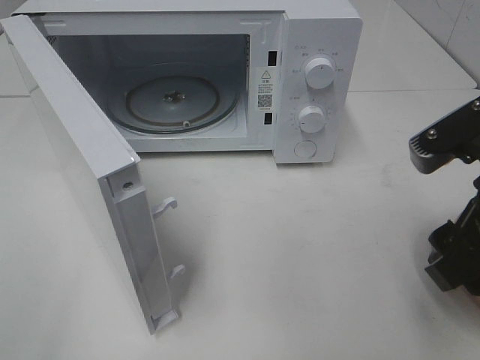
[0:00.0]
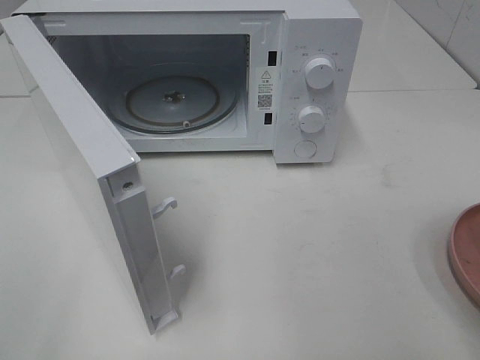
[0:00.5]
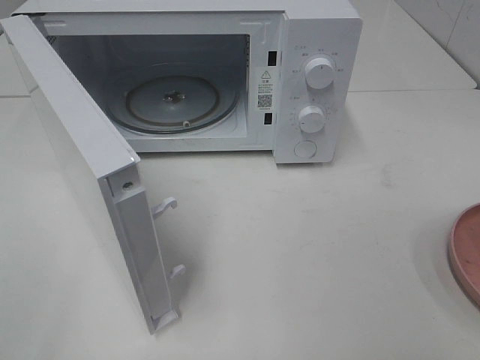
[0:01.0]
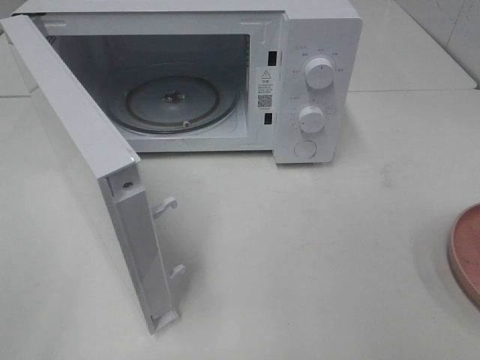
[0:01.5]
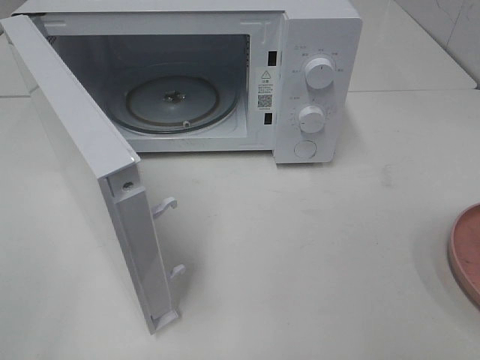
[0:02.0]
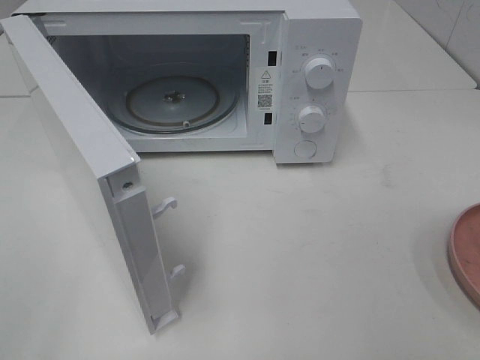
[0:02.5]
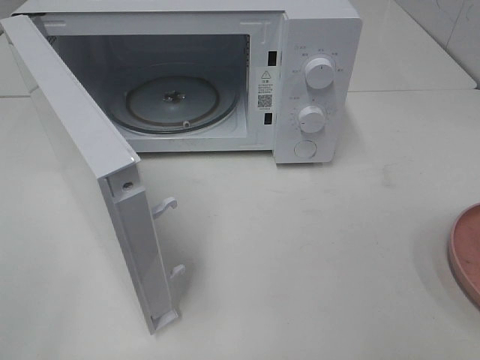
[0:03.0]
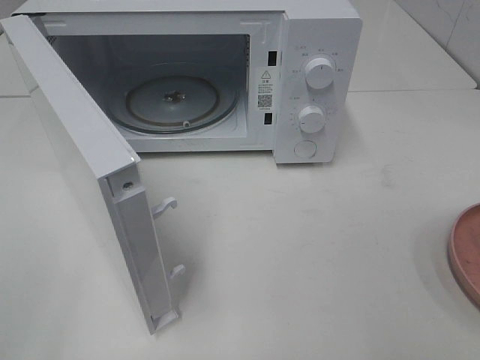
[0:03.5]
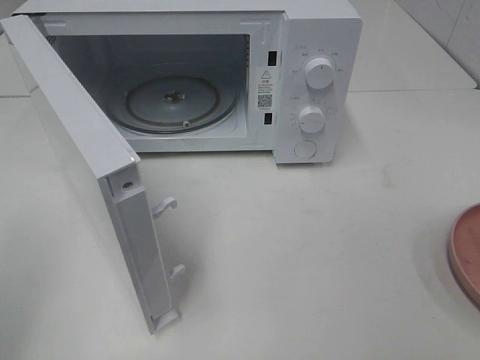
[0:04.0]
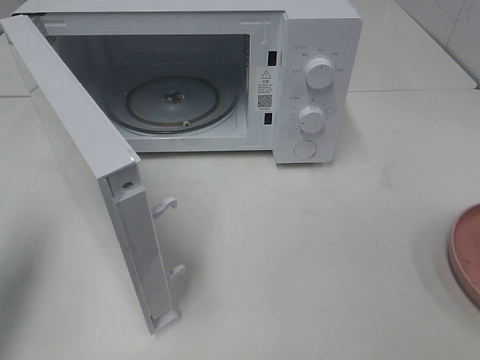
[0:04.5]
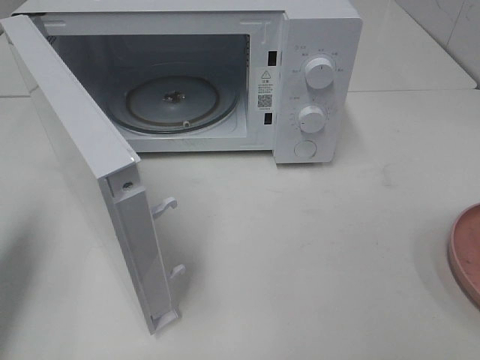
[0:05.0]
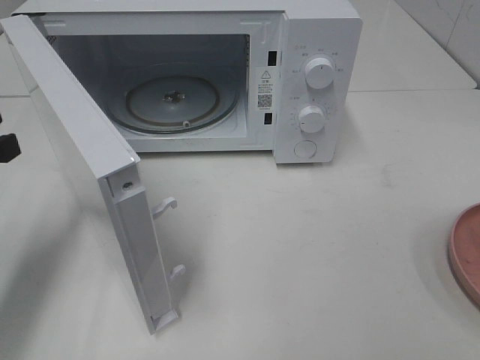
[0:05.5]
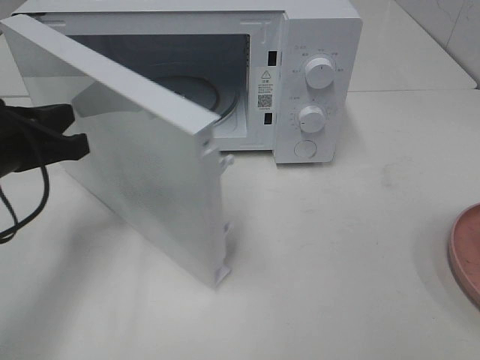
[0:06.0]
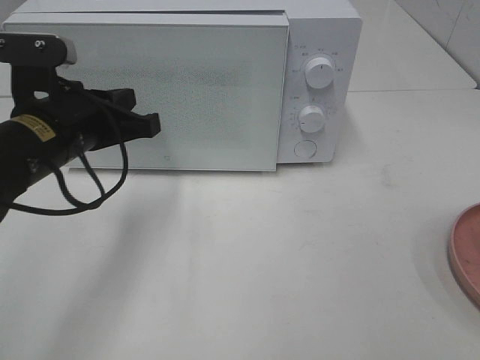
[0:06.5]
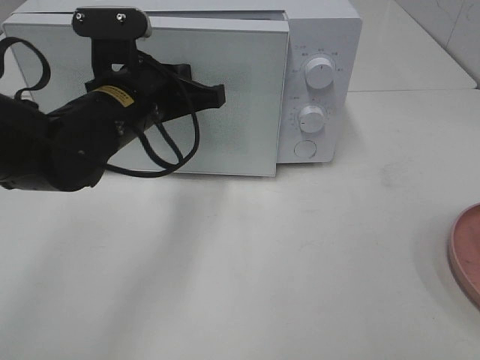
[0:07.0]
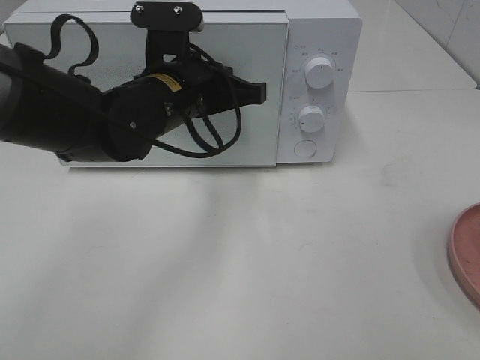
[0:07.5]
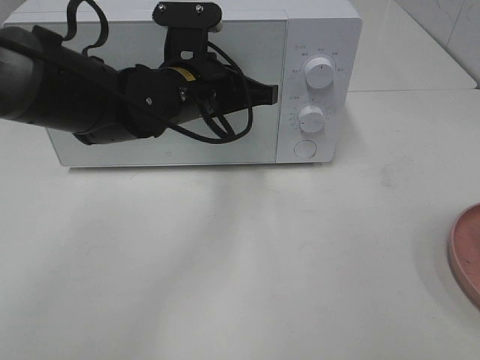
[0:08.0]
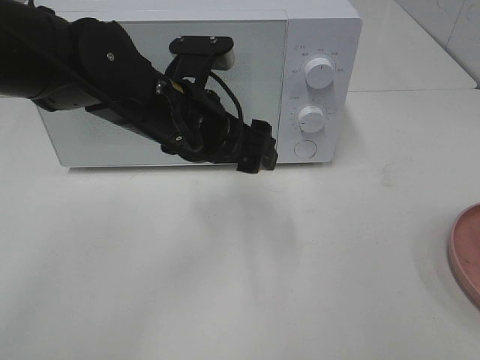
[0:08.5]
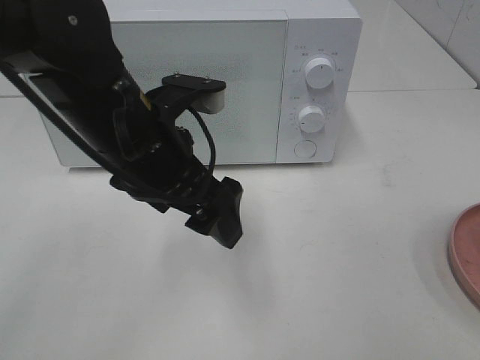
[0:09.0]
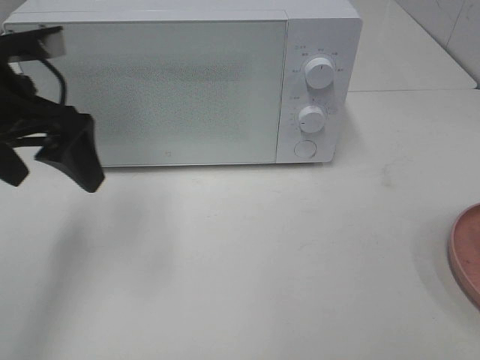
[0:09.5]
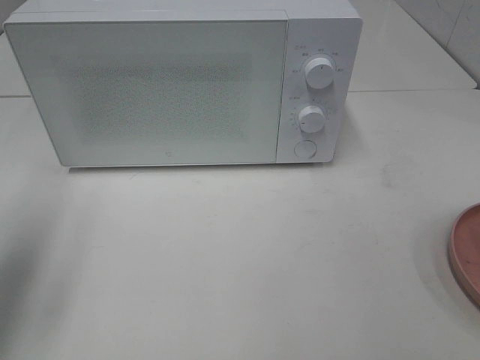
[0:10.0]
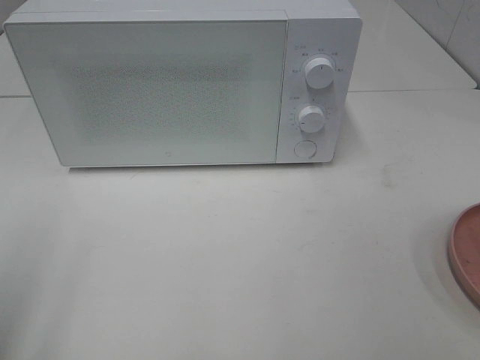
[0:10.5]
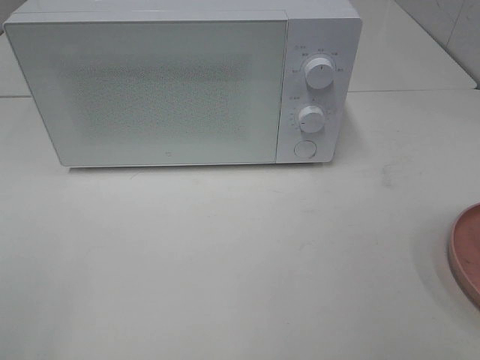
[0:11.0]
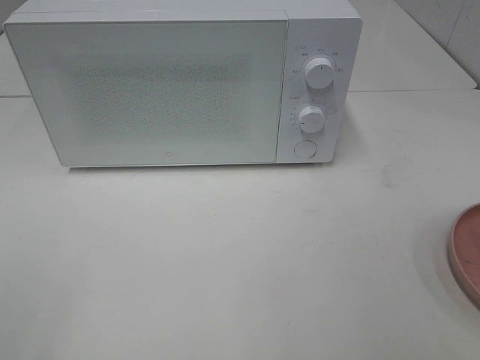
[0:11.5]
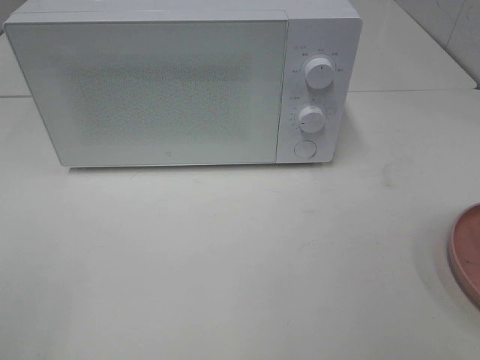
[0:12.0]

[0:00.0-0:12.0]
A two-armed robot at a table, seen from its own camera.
Task of the whole recording: Heat the burger.
Step, 0:00.0 to 0:08.5: Left hand: close the microwave door.
0:00.0 to 0:02.0: The right gripper goes some 20 cm backward and to the right.
0:04.0 to 0:06.0: The left gripper shifts approximately 25 cm forward, downward and to the right, and closes its fingers.
0:06.0 to 0:08.0: The left gripper is displaced to the right and forward by about 20 cm.
0:08.0 to 0:10.0: The left gripper is displaced to the left and backward by roughly 30 cm, and opens.
0:10.0 to 0:12.0: The left gripper is displaced backward by about 20 cm.

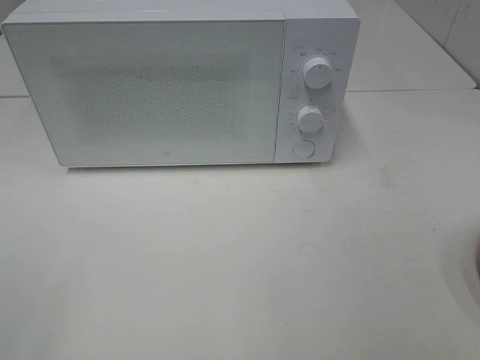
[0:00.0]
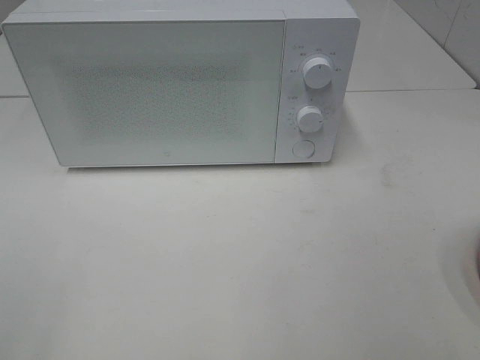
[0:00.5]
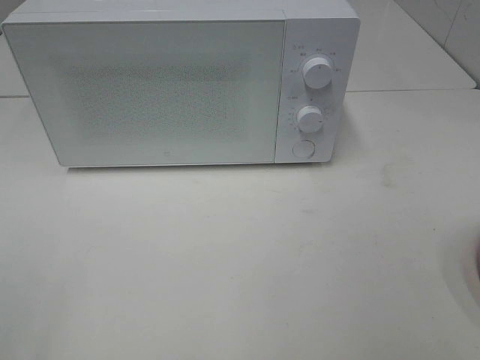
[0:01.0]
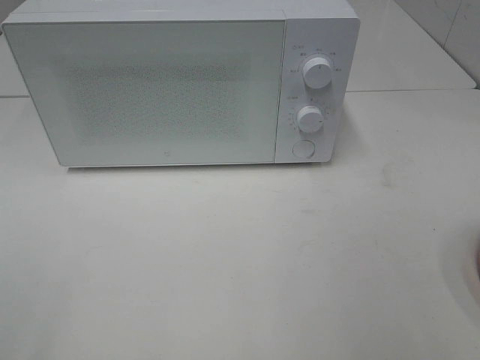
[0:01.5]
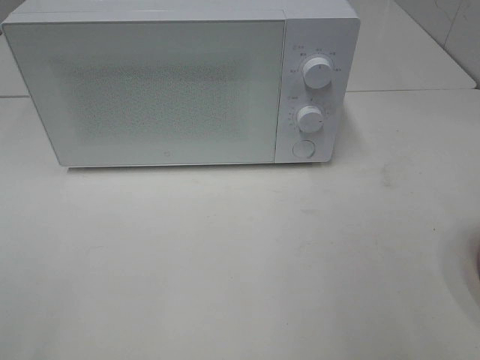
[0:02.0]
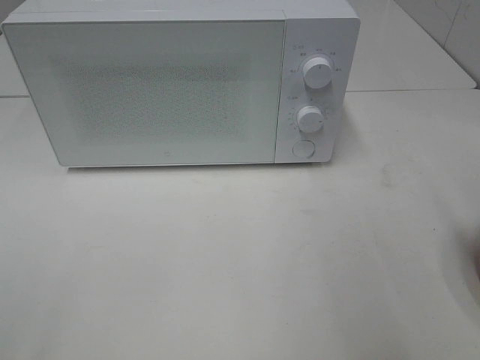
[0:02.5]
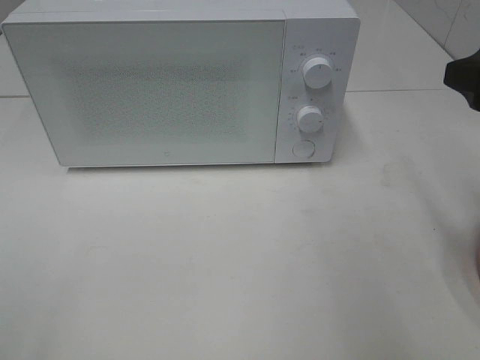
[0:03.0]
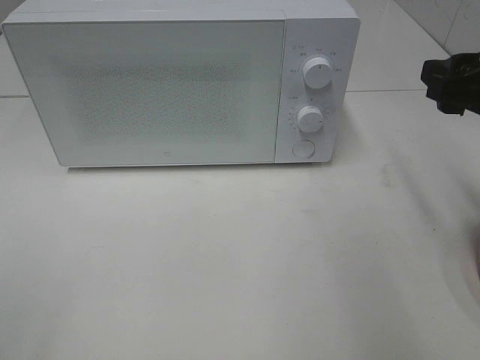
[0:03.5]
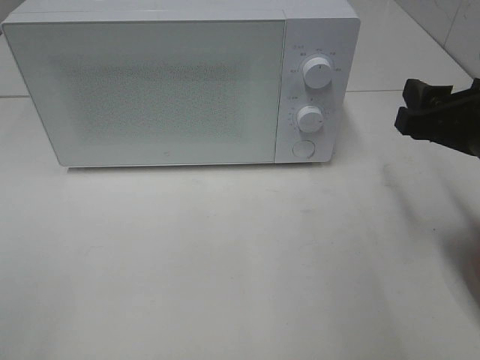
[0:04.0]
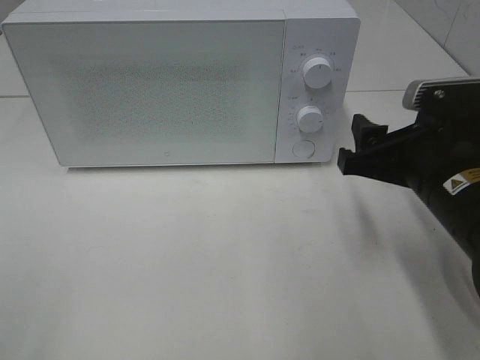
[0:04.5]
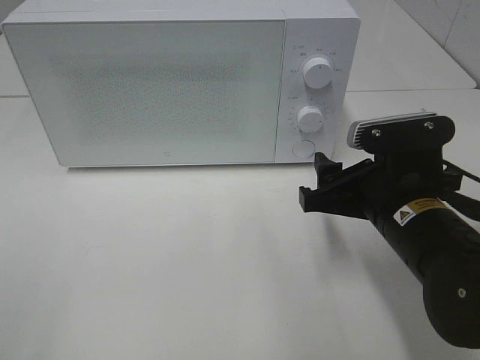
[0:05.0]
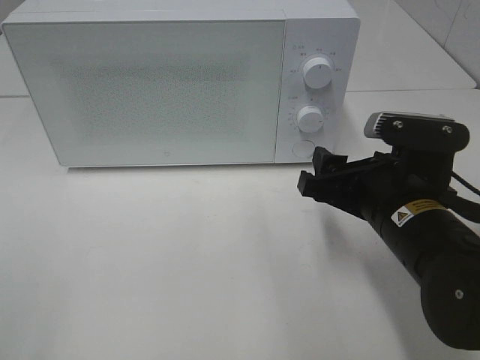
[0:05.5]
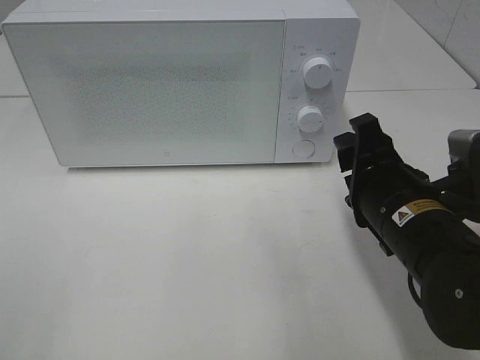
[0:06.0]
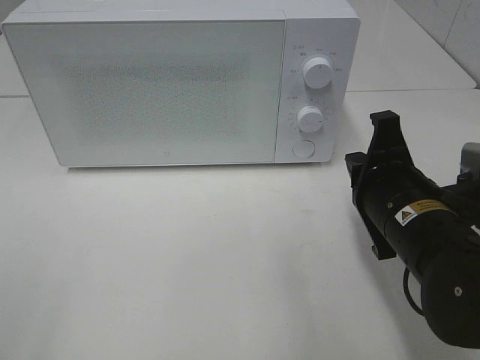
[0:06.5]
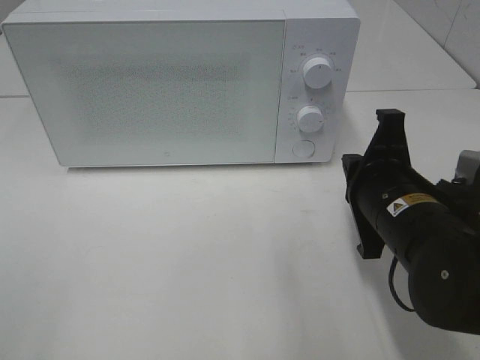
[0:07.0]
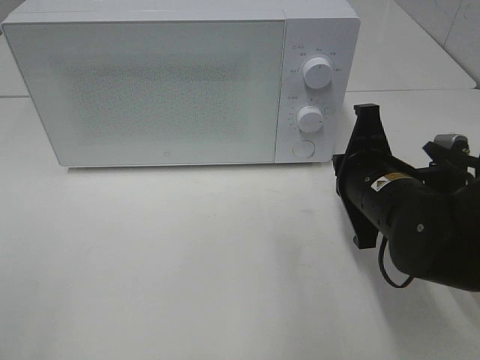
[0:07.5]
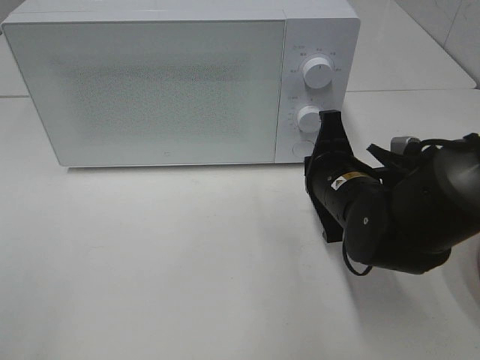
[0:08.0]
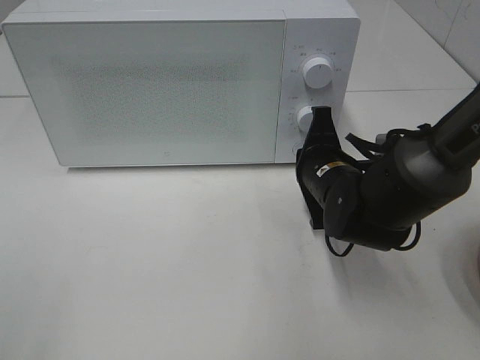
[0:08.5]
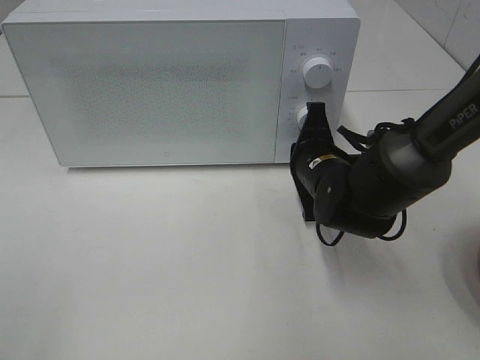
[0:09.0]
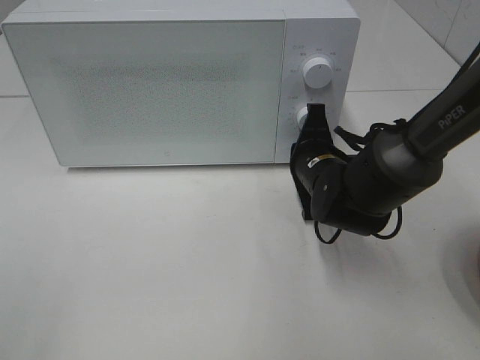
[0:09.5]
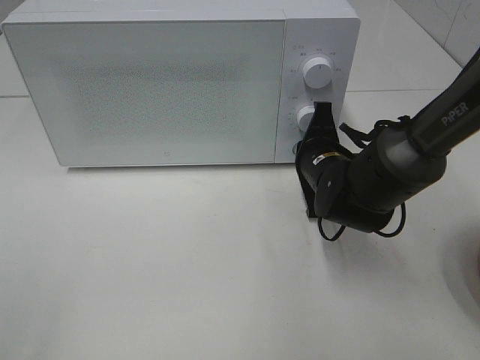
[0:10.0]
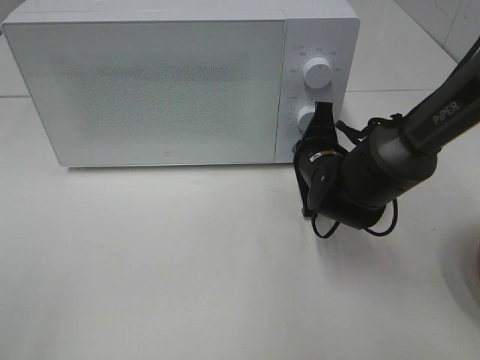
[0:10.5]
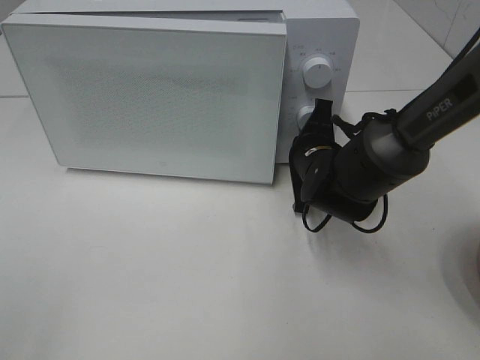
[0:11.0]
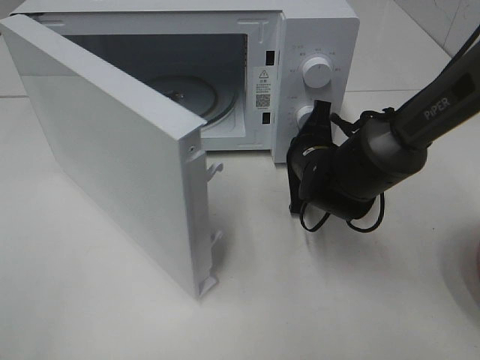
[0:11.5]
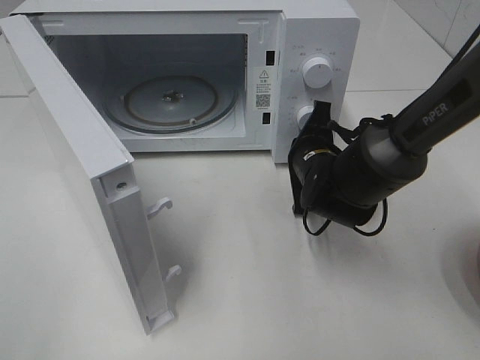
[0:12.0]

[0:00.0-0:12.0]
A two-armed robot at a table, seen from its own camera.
Task of the whole recording: Heat the burger.
0:02.0 to 0:04.0: The right gripper heads forward and downward, covering about 15 cm.
0:04.0 to 0:06.0: The right gripper moves to the left and downward, about 10 cm.
0:06.0 to 0:08.0: The right gripper heads forward, covering about 5 cm, and closes up.
0:08.0 to 0:10.0: The right gripper is displaced forward by approximately 5 cm.

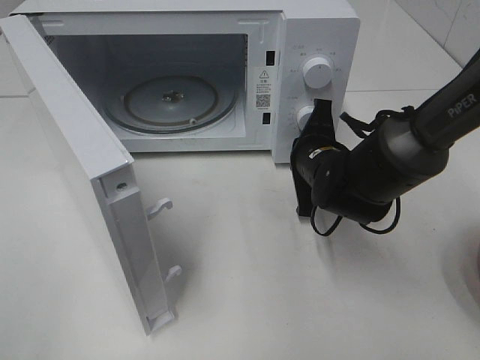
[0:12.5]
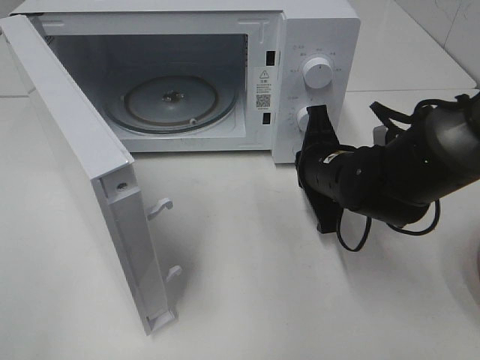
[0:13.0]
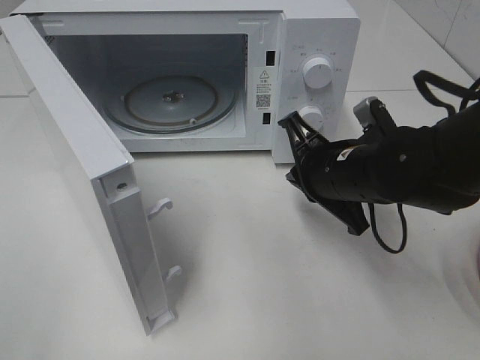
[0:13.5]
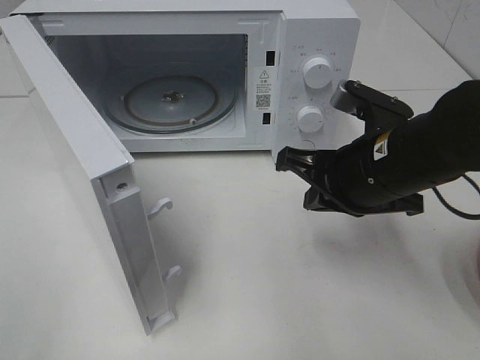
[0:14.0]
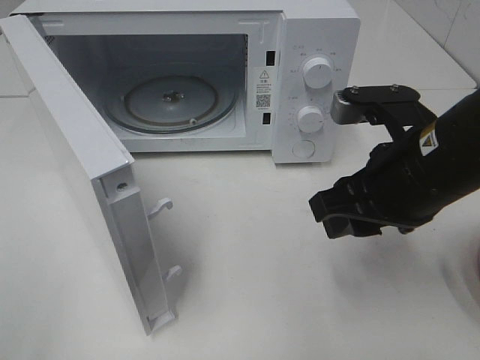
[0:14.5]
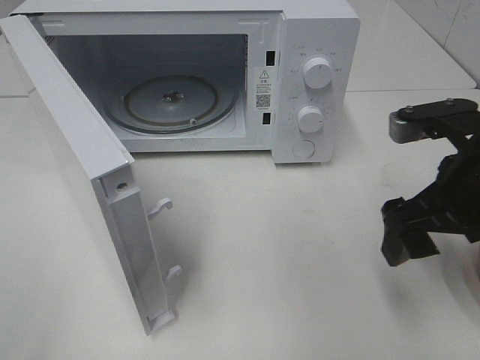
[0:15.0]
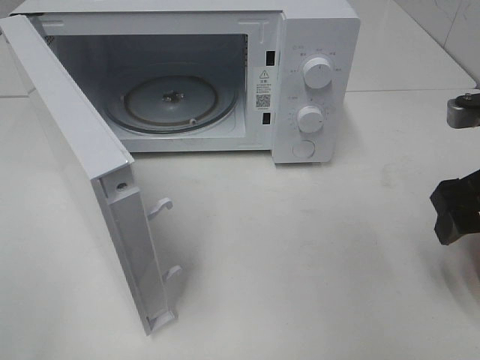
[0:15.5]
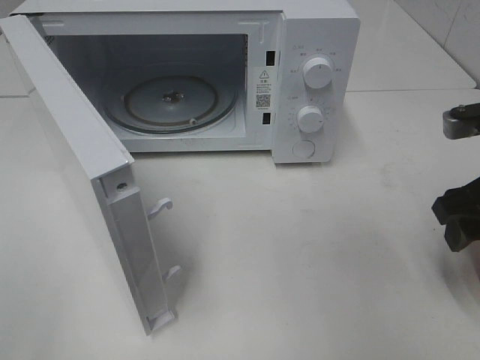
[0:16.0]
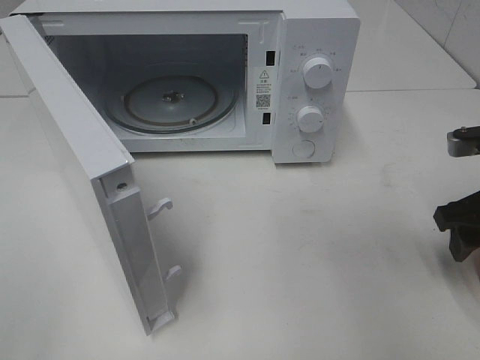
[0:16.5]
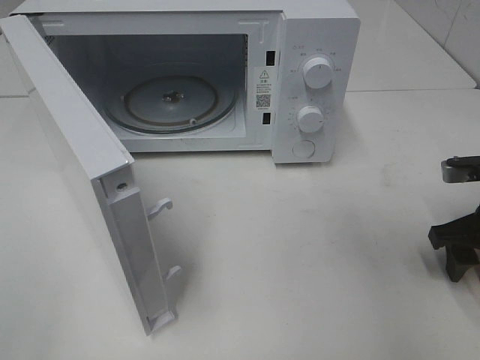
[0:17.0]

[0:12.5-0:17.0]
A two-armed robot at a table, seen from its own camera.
Task of the whole recording: Heat the burger.
0:12.5 to 0:14.5: The right gripper moves backward and upward, some 20 cm, and opens.
0:14.5 to 0:17.0: The right gripper shifts about 20 cm to the right and downward.
